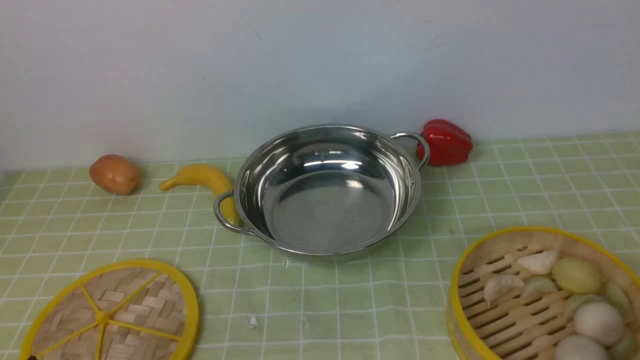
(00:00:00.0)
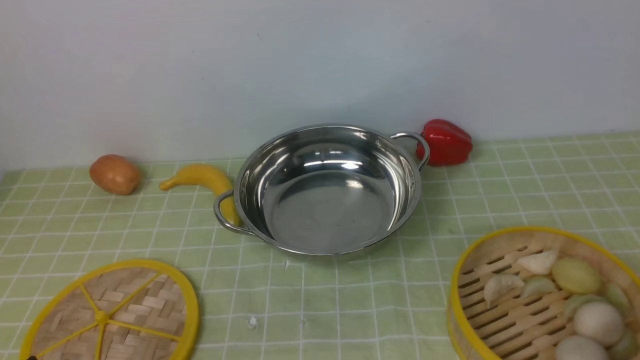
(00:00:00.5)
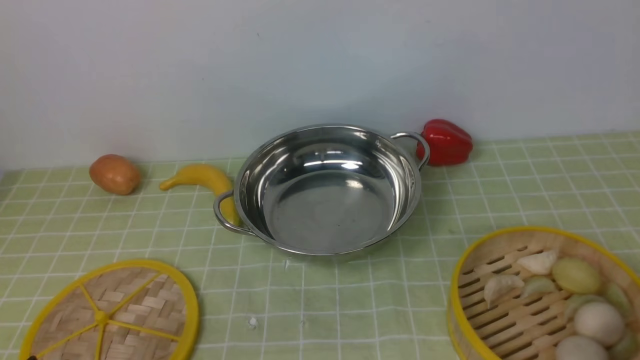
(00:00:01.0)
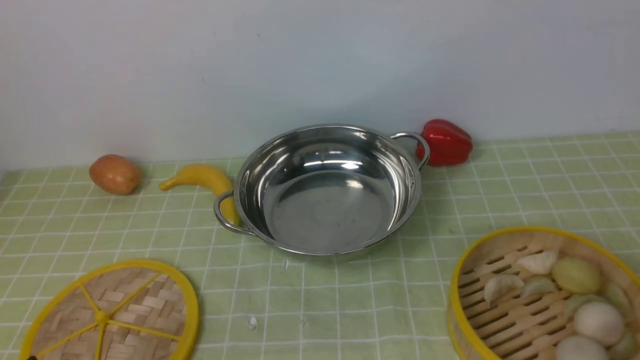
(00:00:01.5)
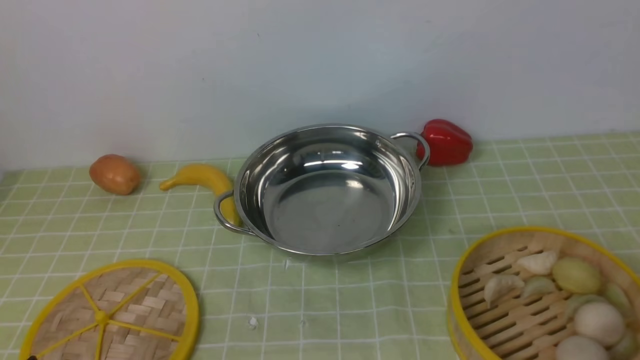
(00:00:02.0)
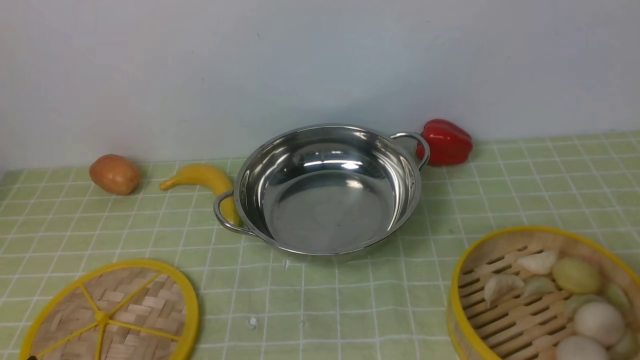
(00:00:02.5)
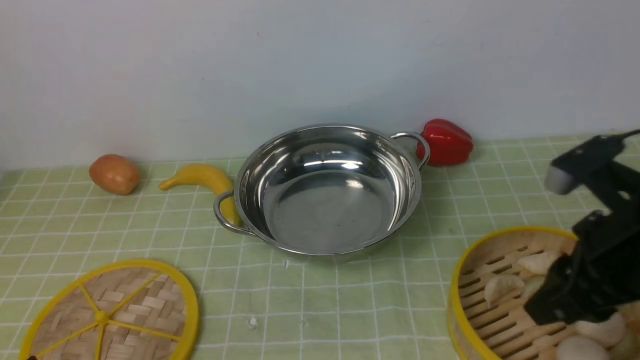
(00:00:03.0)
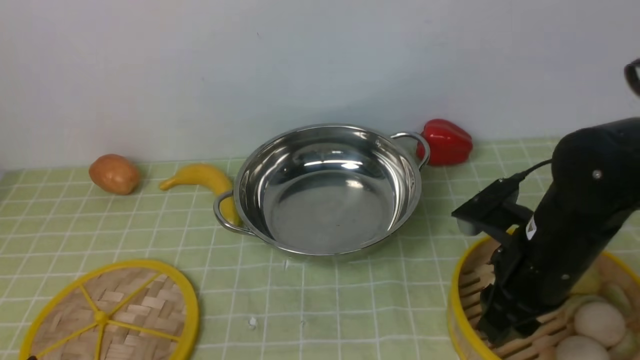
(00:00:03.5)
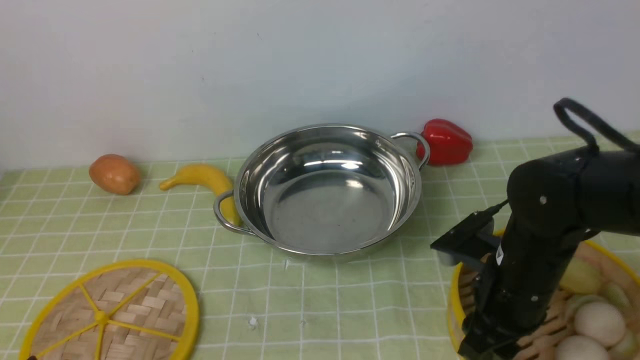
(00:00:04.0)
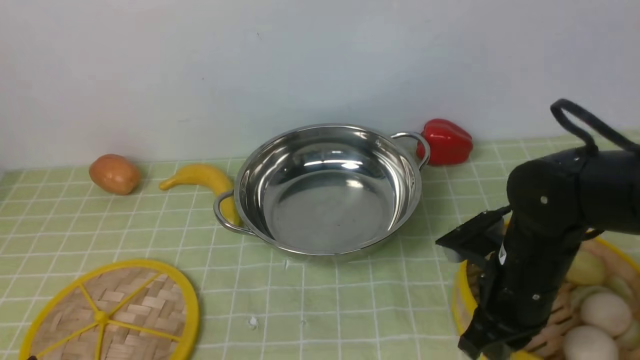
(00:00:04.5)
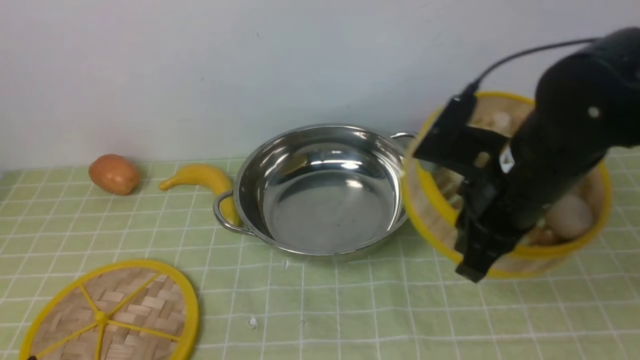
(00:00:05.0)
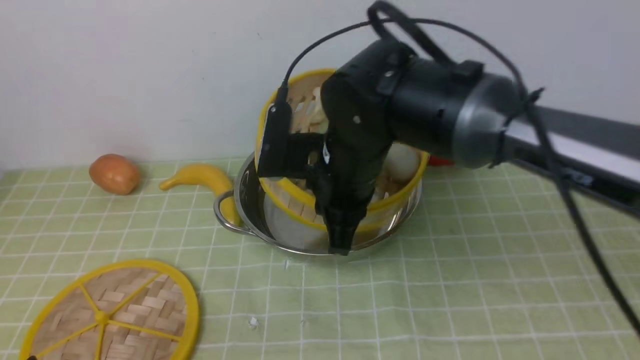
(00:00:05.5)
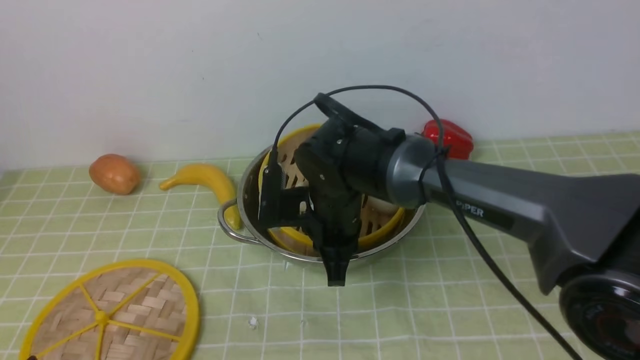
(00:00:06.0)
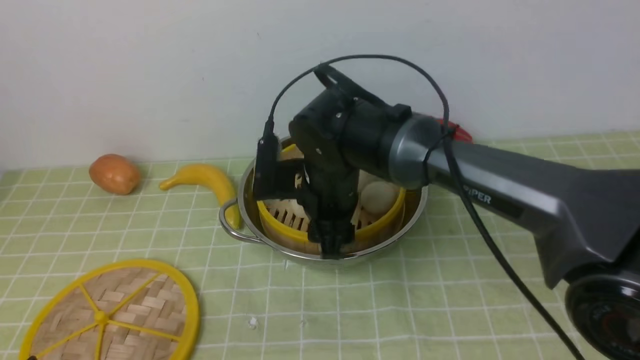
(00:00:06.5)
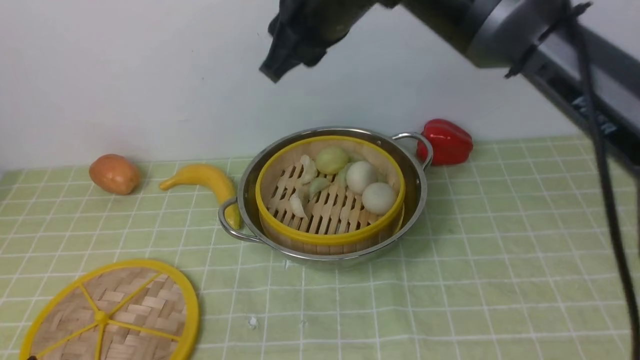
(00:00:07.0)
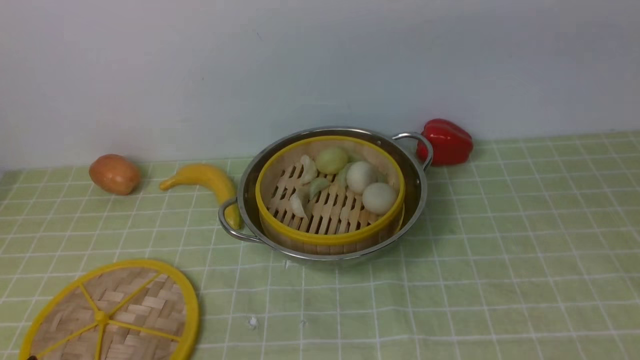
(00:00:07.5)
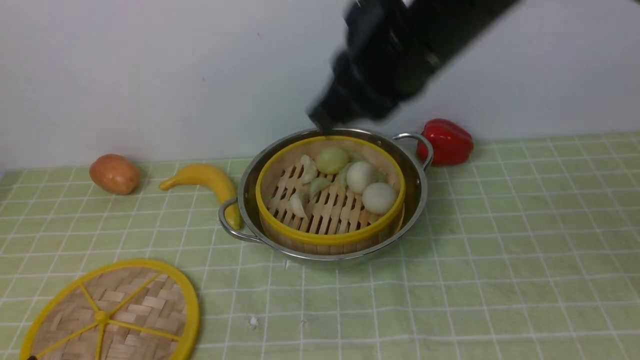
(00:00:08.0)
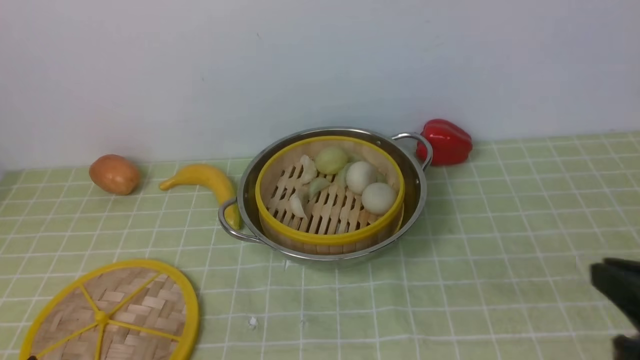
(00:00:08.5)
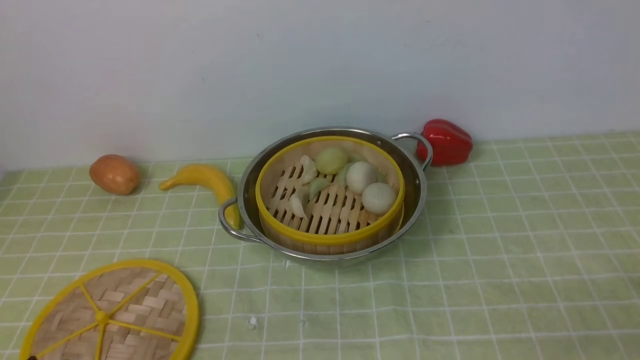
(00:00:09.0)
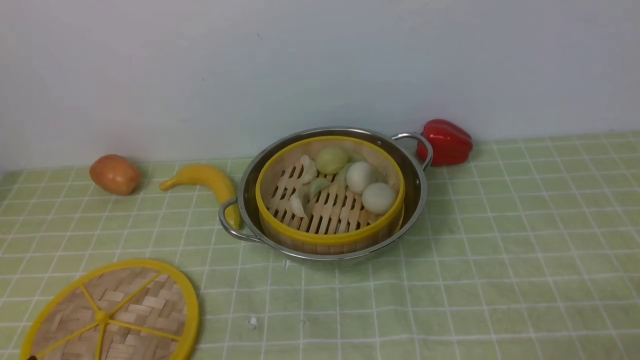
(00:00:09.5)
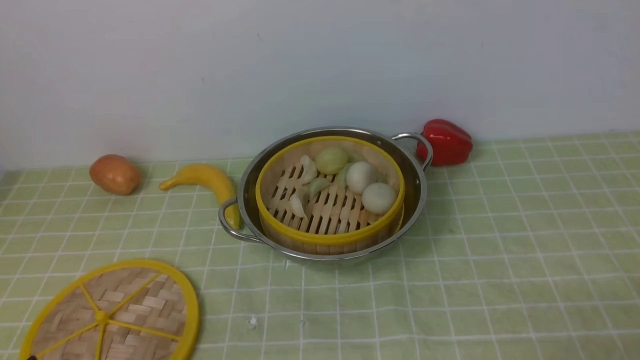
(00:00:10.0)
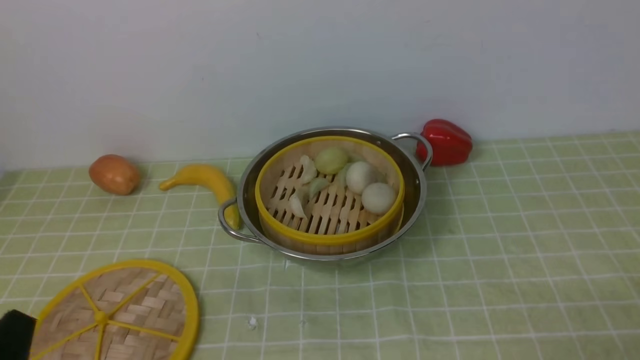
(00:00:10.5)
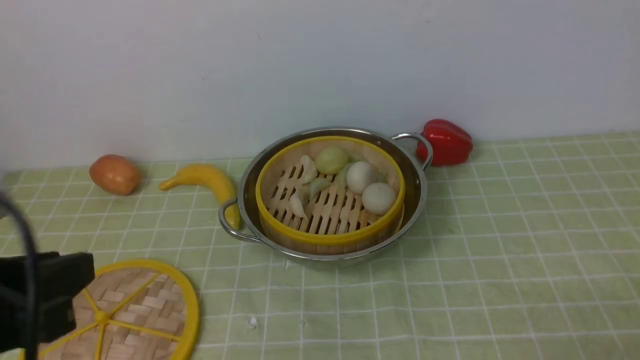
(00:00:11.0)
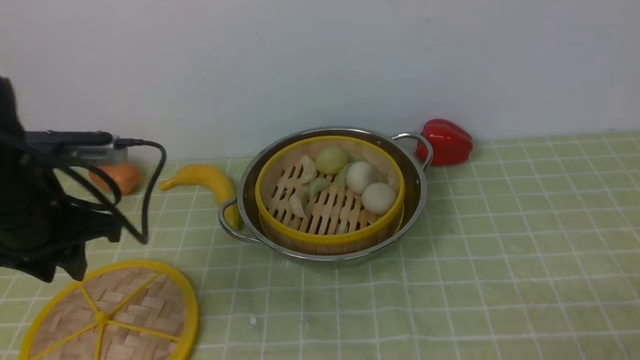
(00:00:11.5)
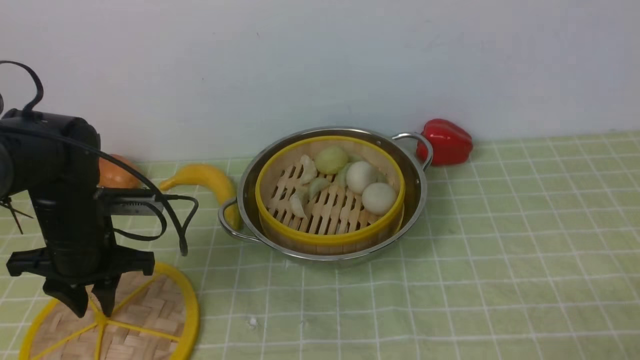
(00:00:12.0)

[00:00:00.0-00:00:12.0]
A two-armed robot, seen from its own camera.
Task of the whole recording: place the steamer in the pot on the green tablecloth, and put the lid on the steamer.
Step, 00:00:00.0 to 00:00:04.5: use the right arm to lift the steamer closest to it.
Step, 00:00:05.0 to 00:00:07.0: use the right arm to put the steamer into the iron steamer pot in the middle.
00:00:02.0 to 00:00:04.0: The right gripper heads forward, downward and to the left, covering some 30 cm.
00:00:04.0 to 00:00:06.0: The right gripper shifts roughly 20 cm to the left and forward, and closes up.
00:00:06.0 to 00:00:08.0: The right gripper shifts approximately 25 cm upward, backward and to the right, and opens and closes again.
00:00:08.0 to 00:00:10.0: The right gripper travels to the right, downward and backward by about 40 cm, and opens up.
00:00:10.0 to 00:00:12.0: The left gripper is displaced forward by about 25 cm.

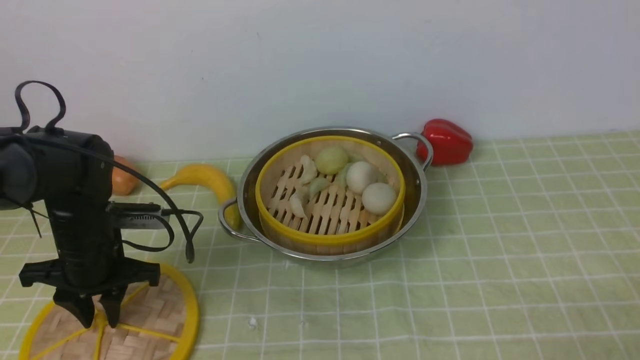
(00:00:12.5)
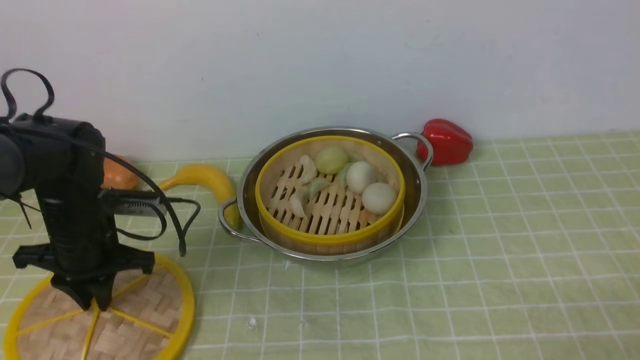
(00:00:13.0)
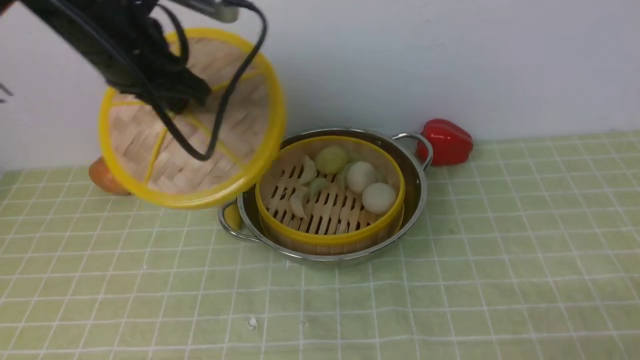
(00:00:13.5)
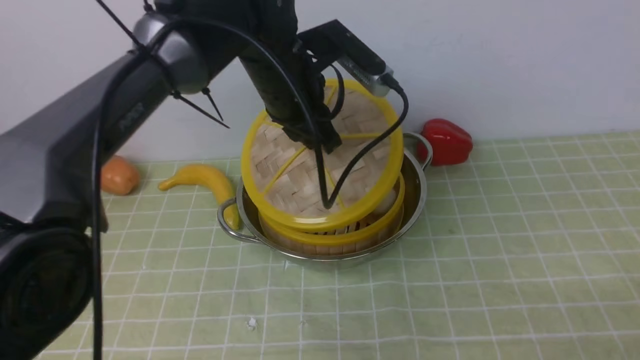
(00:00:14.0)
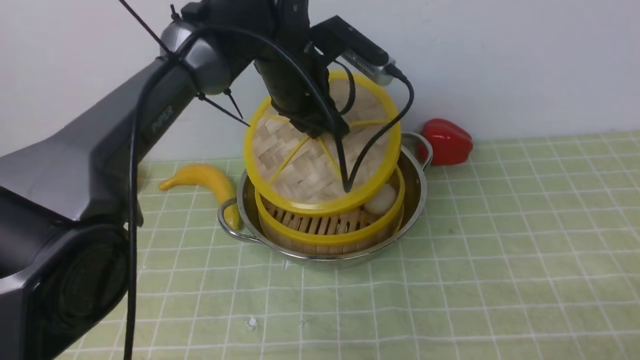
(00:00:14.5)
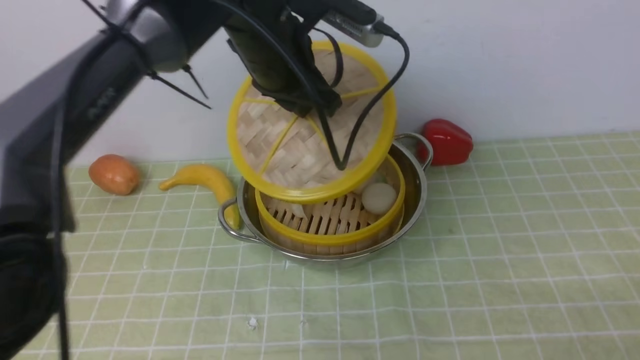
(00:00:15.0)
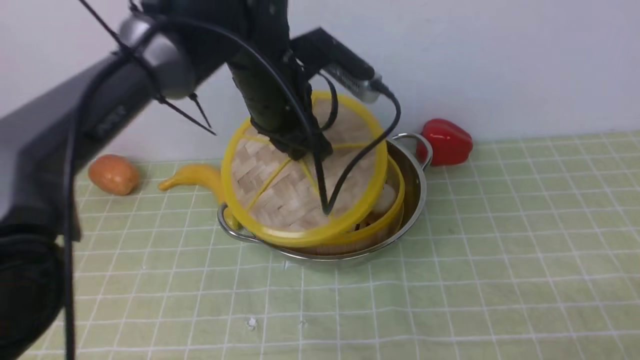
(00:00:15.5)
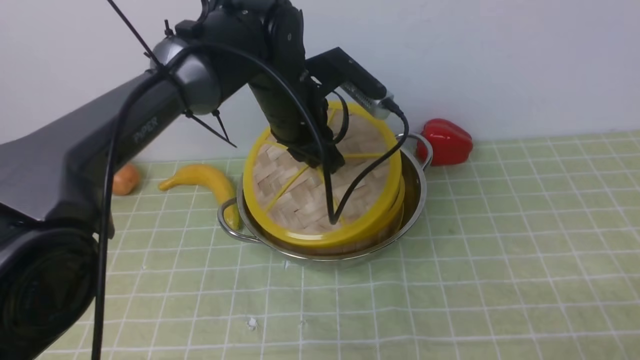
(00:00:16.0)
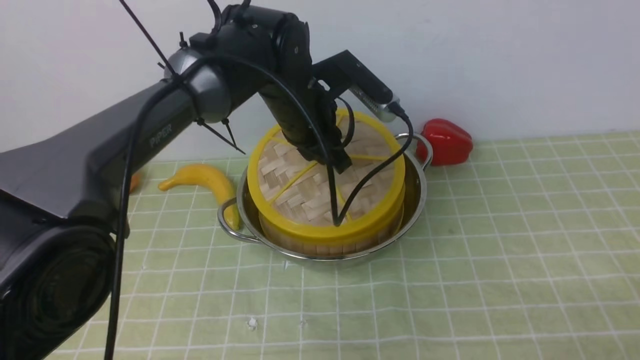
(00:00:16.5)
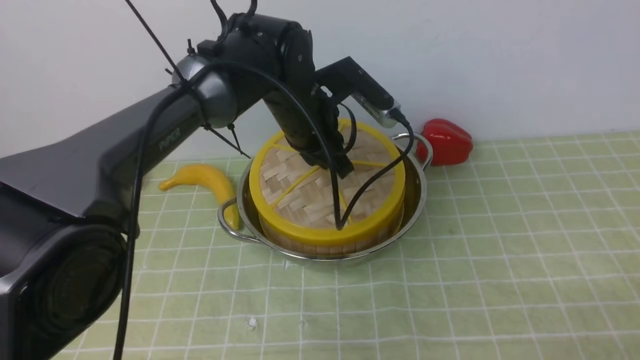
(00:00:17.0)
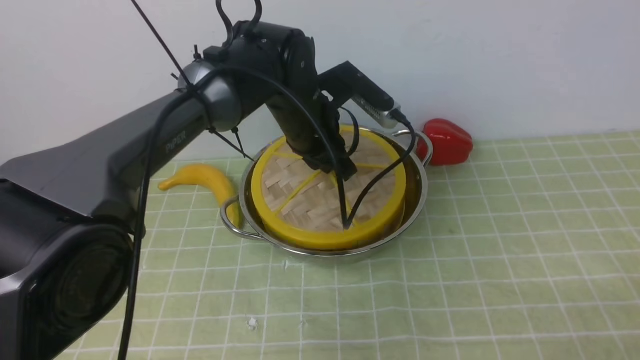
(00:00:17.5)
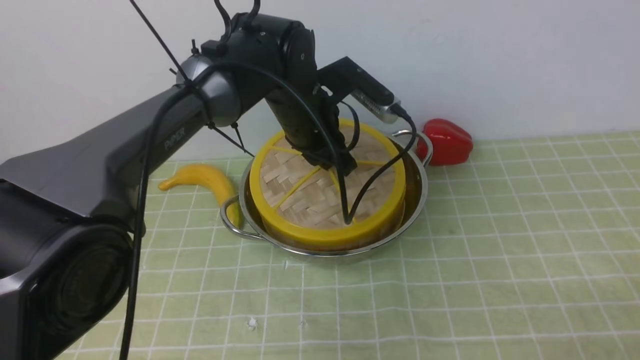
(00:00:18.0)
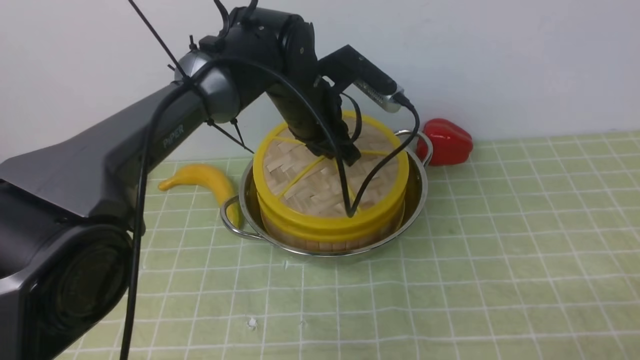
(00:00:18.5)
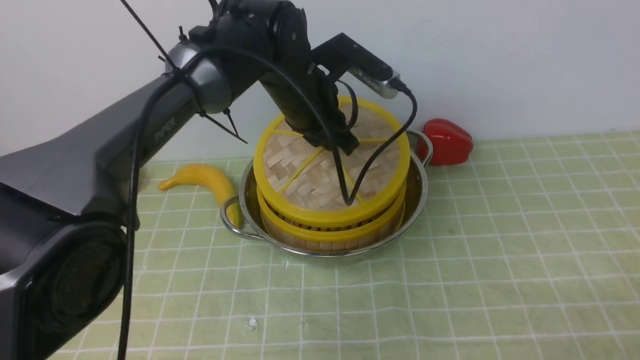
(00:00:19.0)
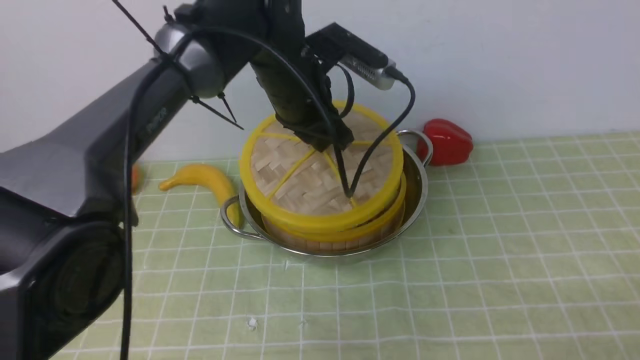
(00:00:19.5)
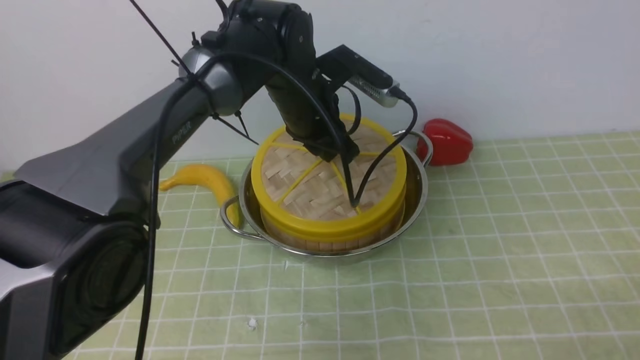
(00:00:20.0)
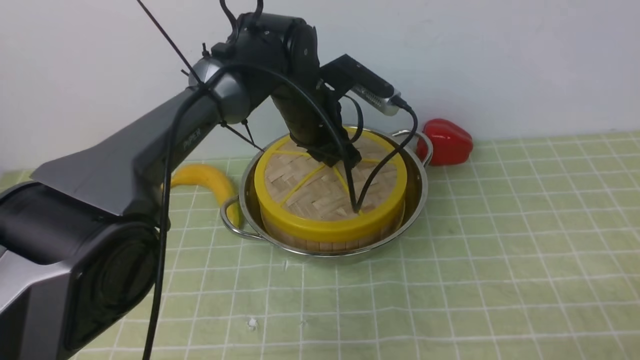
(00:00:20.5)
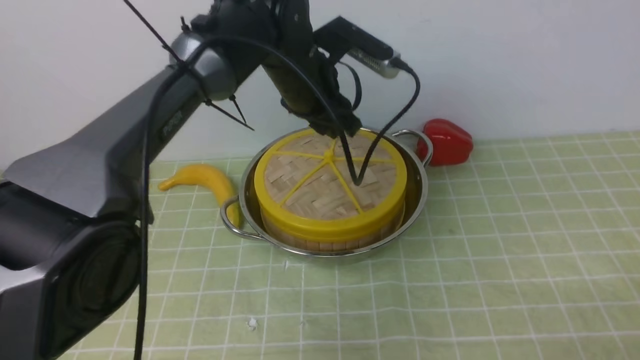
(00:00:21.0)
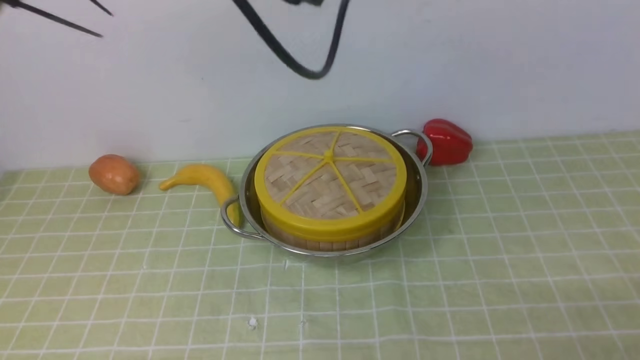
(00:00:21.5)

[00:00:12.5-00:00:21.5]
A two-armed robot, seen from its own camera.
Task of the whole recording: place the steamer in the pot on the green tablecloth, and put the lid on the steamer.
00:00:12.5 to 00:00:14.5: The left gripper shifts roughly 30 cm to the right, upward and forward.
00:00:14.5 to 00:00:17.0: The left gripper shifts some 5 cm downward.
00:00:17.0 to 00:00:19.5: The grippers make only small movements.
00:00:19.5 to 00:00:21.5: The left gripper goes about 20 cm upward, and opens its fingers.
